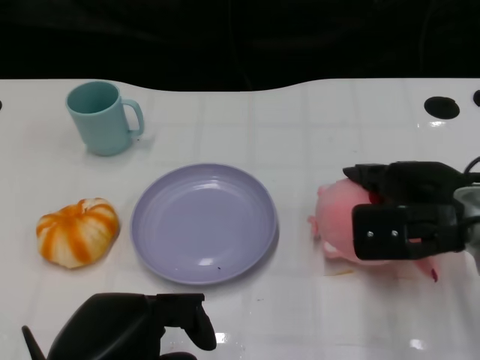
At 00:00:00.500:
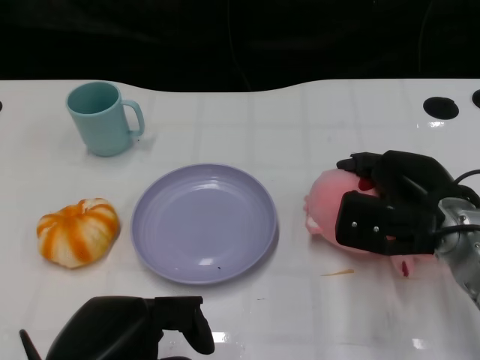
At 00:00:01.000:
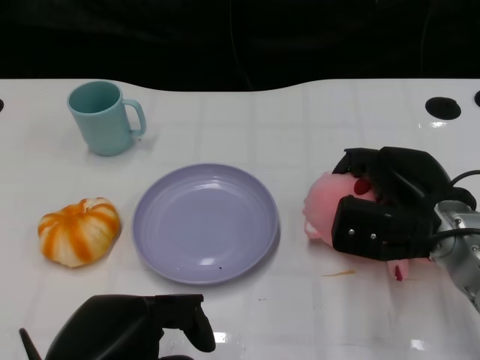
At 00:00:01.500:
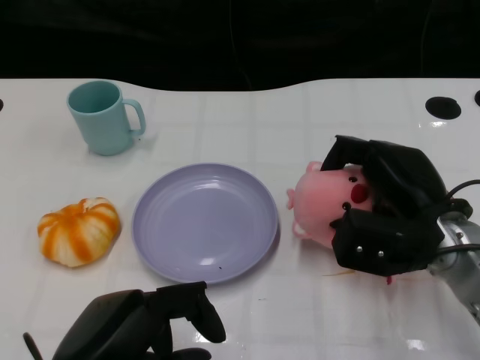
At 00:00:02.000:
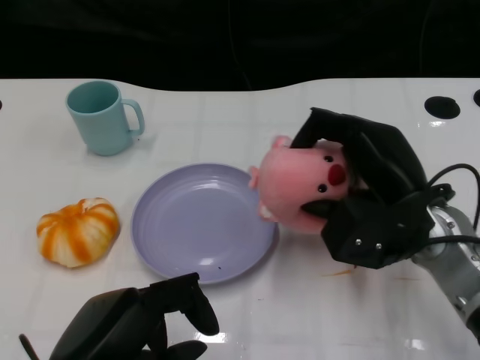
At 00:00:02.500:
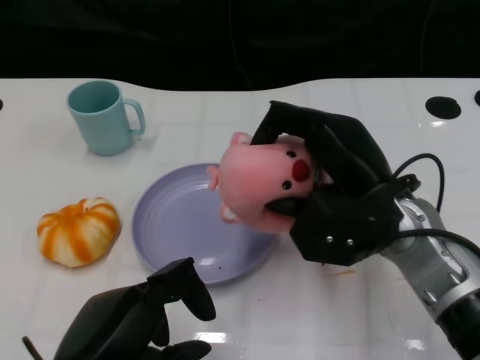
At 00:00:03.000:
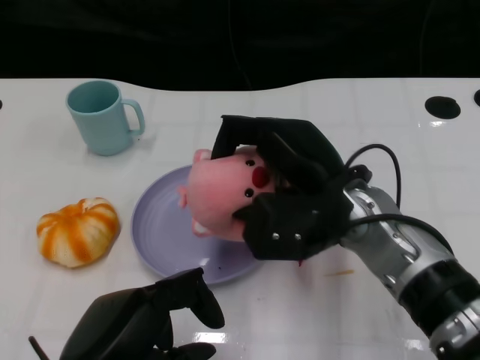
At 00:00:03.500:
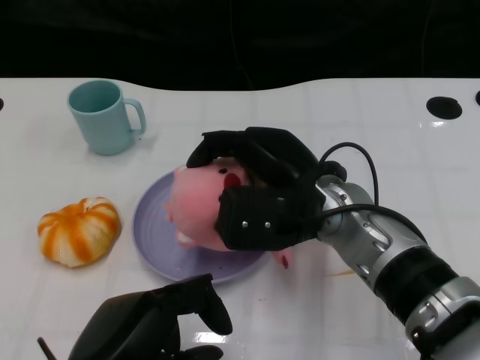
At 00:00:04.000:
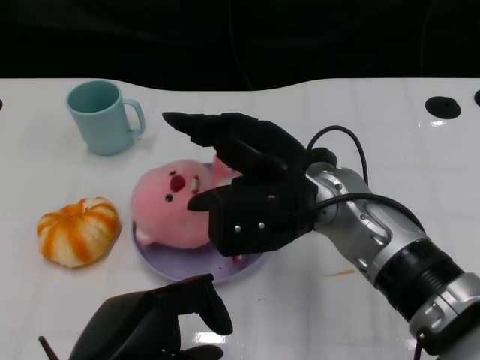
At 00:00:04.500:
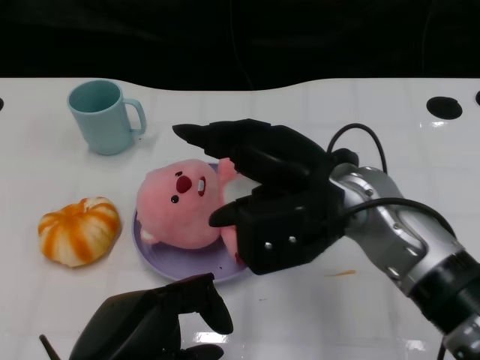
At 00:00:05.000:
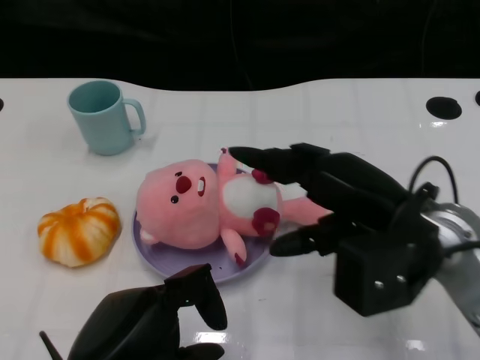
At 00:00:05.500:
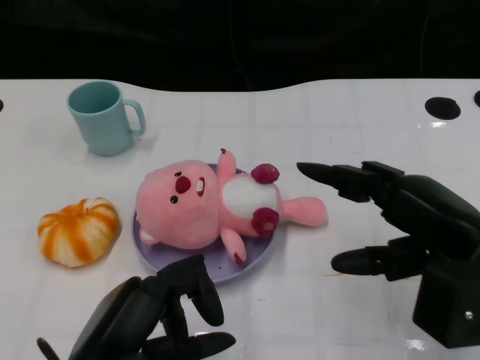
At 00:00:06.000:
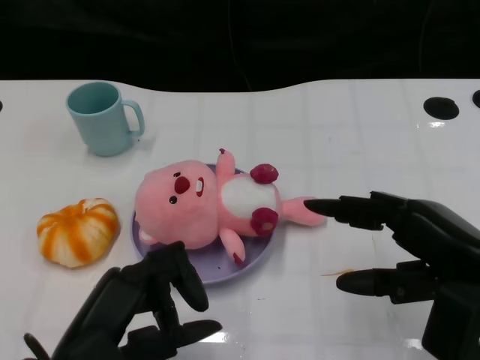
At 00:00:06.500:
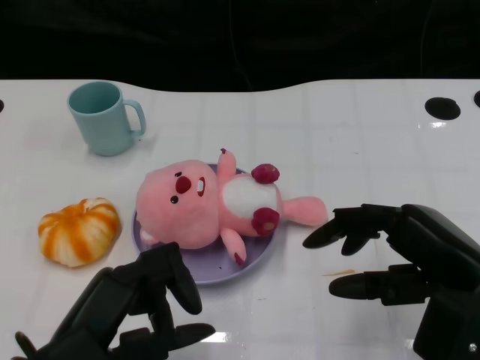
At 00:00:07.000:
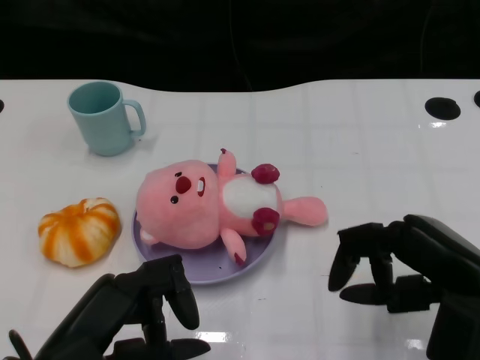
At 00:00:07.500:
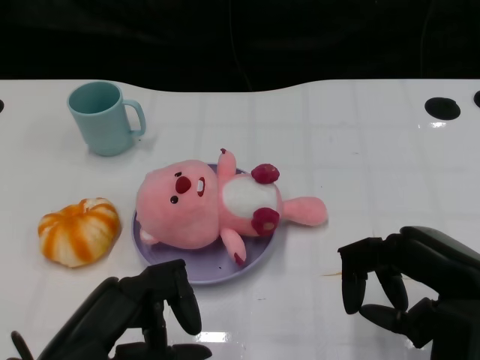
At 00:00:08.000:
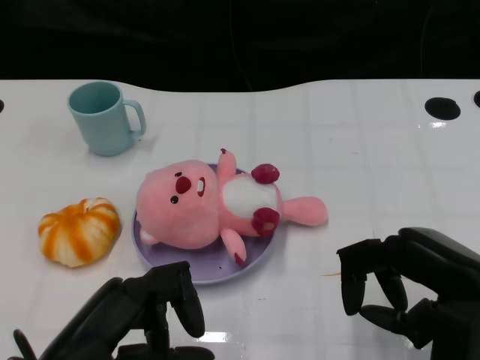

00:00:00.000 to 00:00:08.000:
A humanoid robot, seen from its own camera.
Task of the whole recording: Pick up the doll on the other side of the plate and place it into the plate.
Step, 00:00:00.000 to 00:00:02.500: Grasp the pink doll with the right gripper.
Step, 00:00:03.000 to 00:00:04.500: Place the pink doll into the plate with the right gripper.
00:00:02.000 to 00:00:04.000: The right hand goes roughly 10 cm to the left.
00:00:04.000 to 00:00:06.000: The right hand heads to the right and backward, covering roughly 20 cm.
00:00:06.000 to 00:00:08.000: The hands stay close to where they were, moving slightly.

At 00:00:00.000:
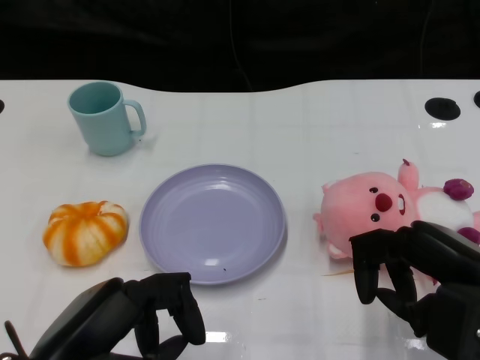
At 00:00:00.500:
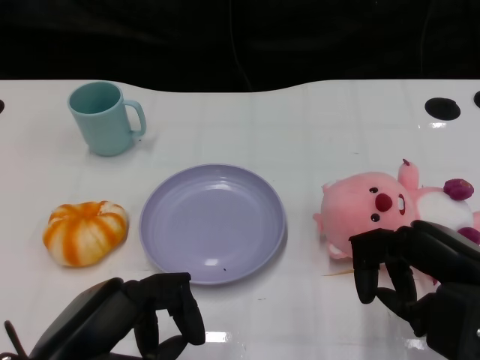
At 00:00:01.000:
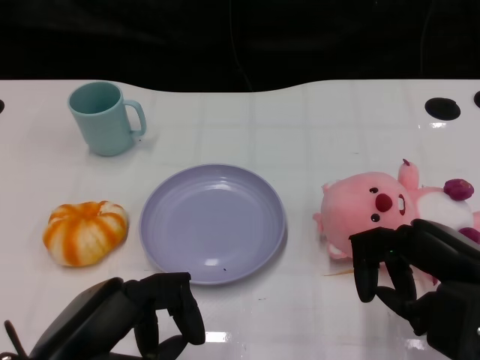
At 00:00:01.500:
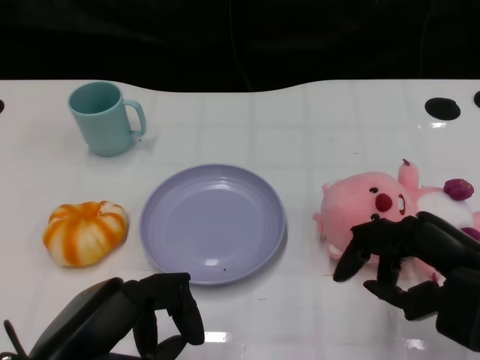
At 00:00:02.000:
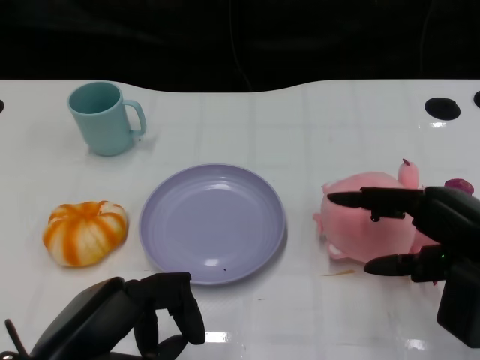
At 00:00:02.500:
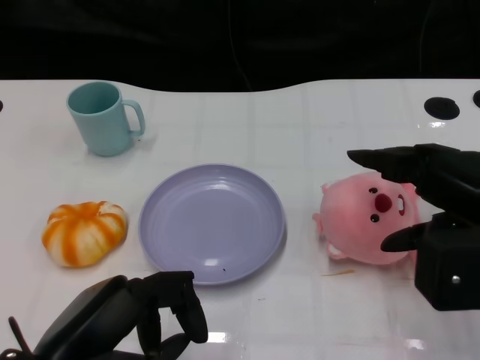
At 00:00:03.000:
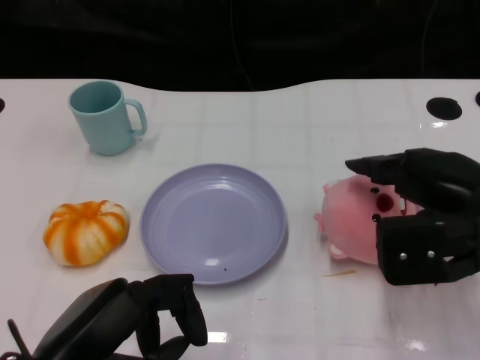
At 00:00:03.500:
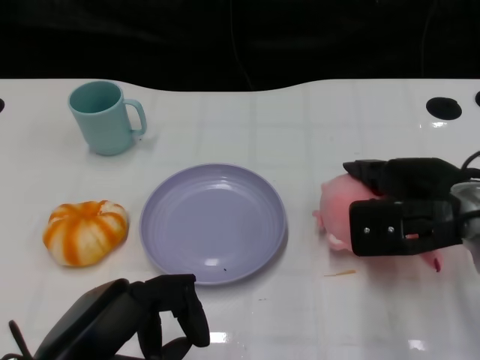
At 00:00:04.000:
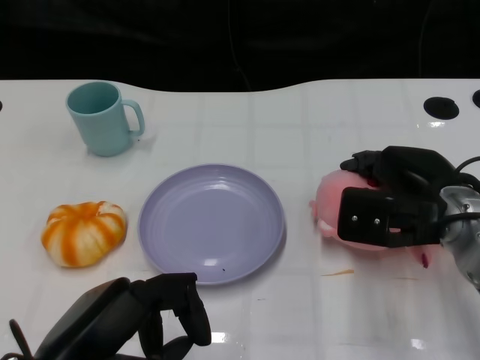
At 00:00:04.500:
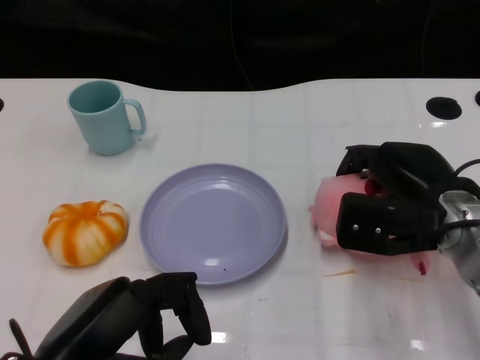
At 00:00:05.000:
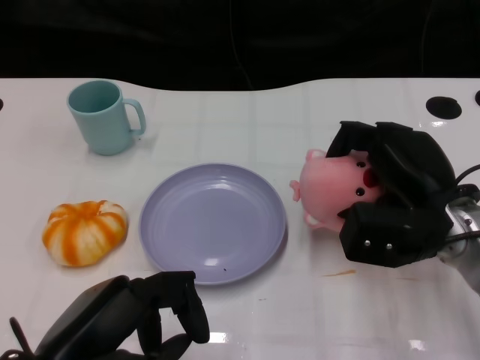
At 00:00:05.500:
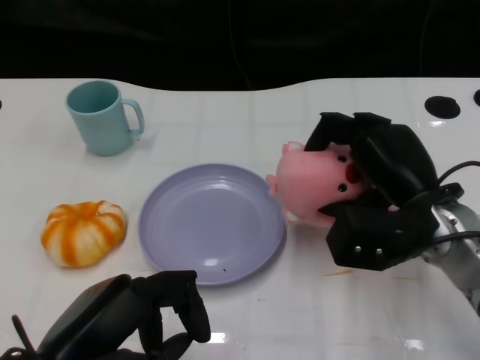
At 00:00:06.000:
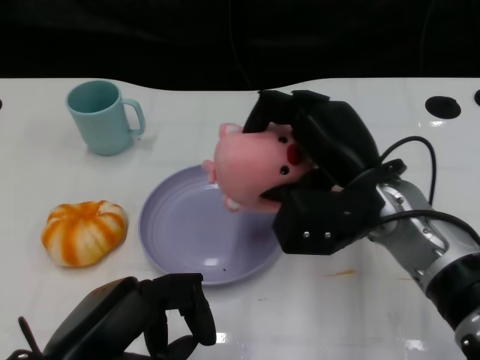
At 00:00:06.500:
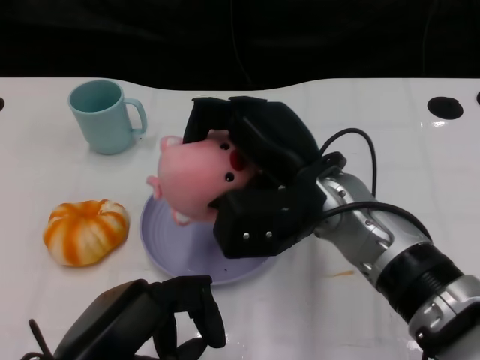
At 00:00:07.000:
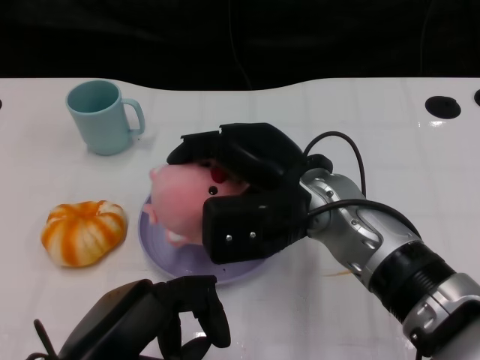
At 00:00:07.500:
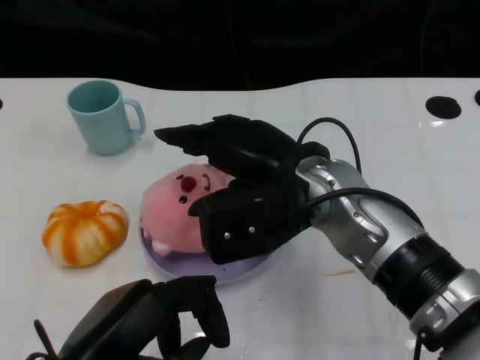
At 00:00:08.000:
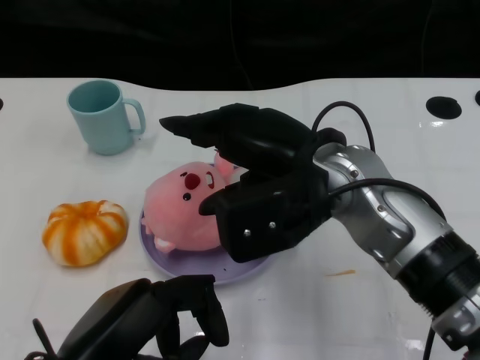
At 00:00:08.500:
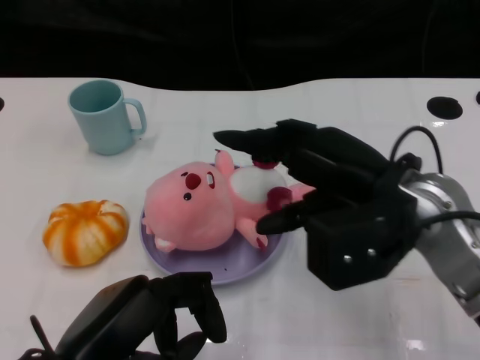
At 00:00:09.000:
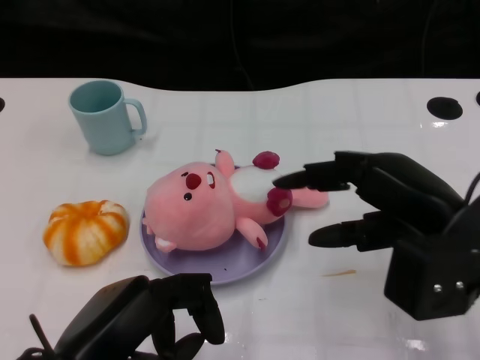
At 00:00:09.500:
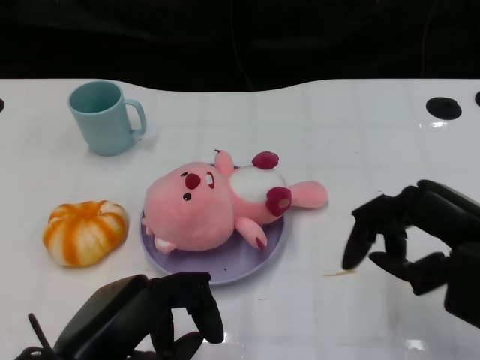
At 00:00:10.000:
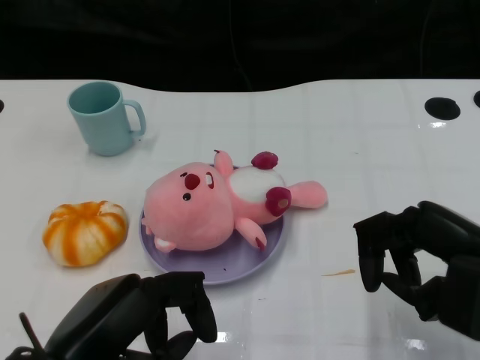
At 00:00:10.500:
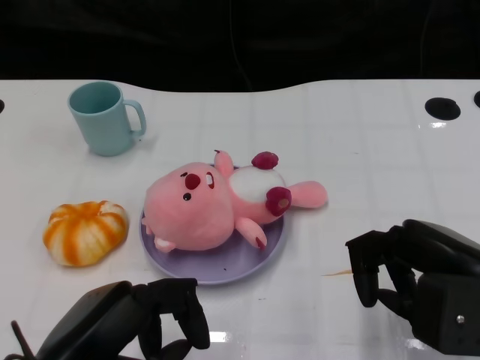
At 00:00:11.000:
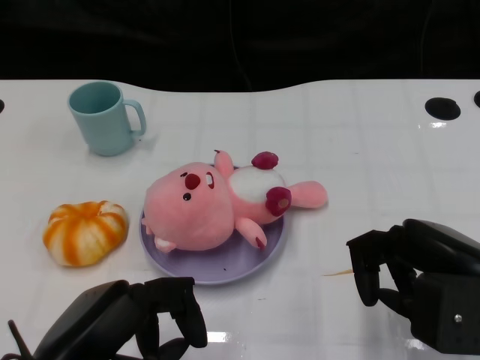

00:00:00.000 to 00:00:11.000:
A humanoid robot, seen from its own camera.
Task of the whole recording: Pick up the doll on the other side of the plate and place it into the plate.
Step, 00:00:01.500 to 00:00:05.500: Grasp the pink doll with the right gripper.
Step, 00:00:06.000 to 00:00:08.000: Place the pink doll into the plate with the right gripper.
00:00:02.000 to 00:00:03.500: The right hand shifts some 10 cm forward.
00:00:05.500 to 00:00:07.500: The right hand is displaced to the left and upward by roughly 15 cm.
00:00:07.500 to 00:00:09.000: The right hand moves to the right, about 15 cm.
00:00:09.000 to 00:00:11.000: The right hand changes place by roughly 5 cm.

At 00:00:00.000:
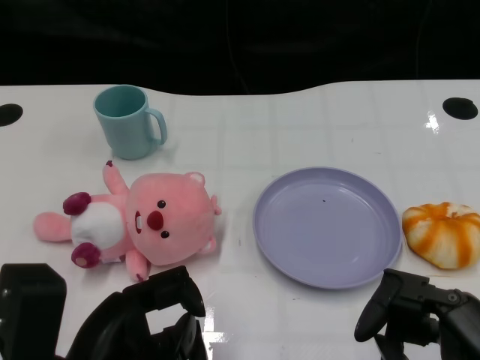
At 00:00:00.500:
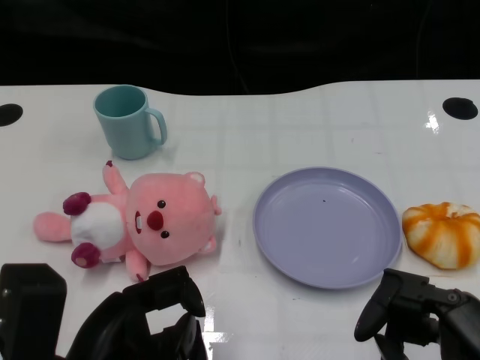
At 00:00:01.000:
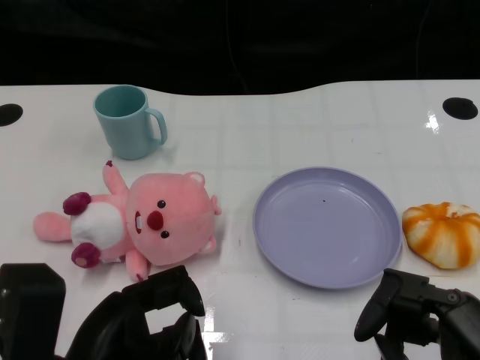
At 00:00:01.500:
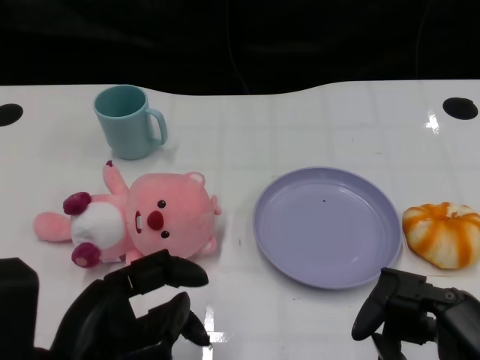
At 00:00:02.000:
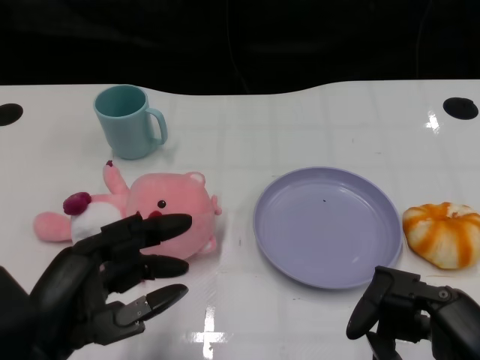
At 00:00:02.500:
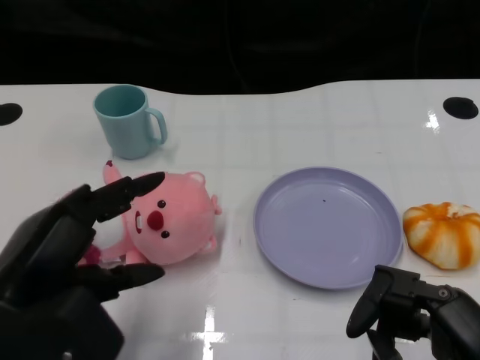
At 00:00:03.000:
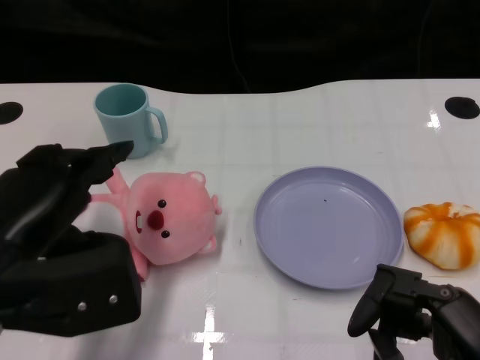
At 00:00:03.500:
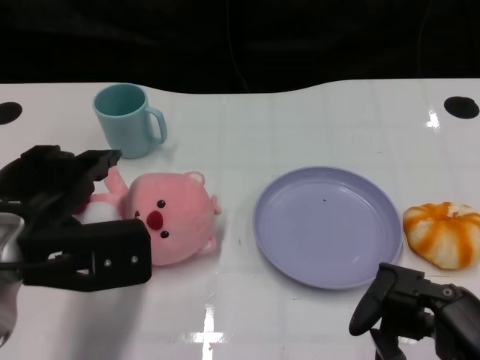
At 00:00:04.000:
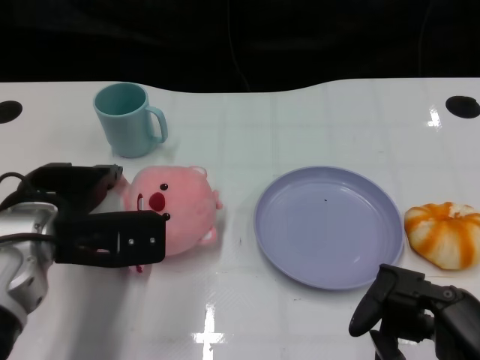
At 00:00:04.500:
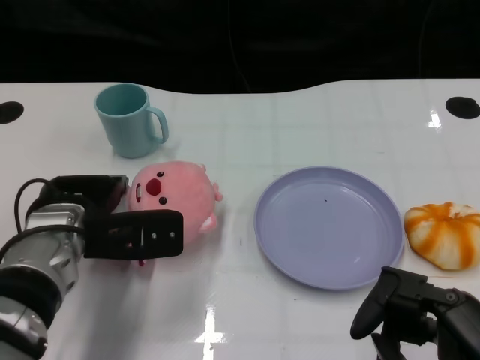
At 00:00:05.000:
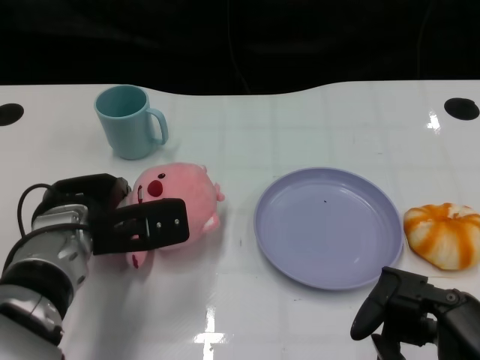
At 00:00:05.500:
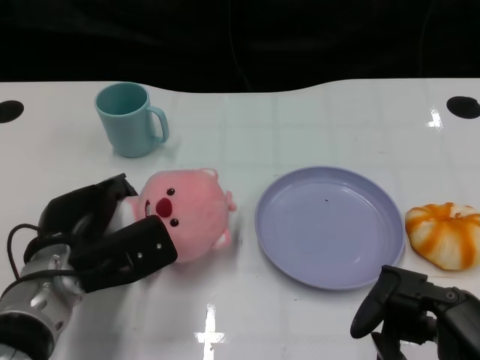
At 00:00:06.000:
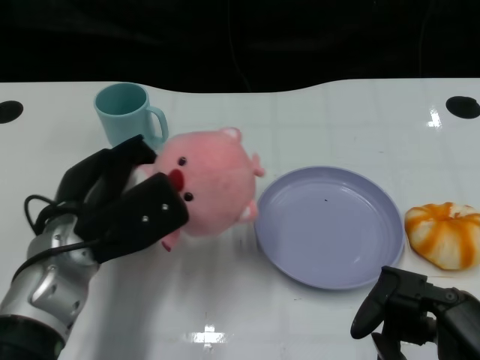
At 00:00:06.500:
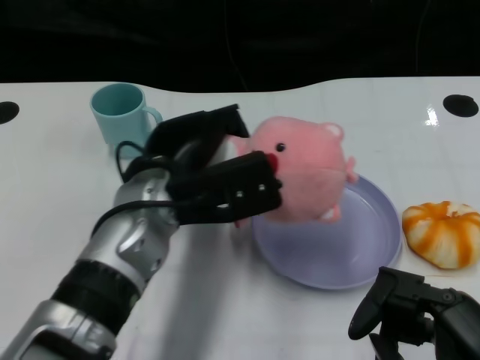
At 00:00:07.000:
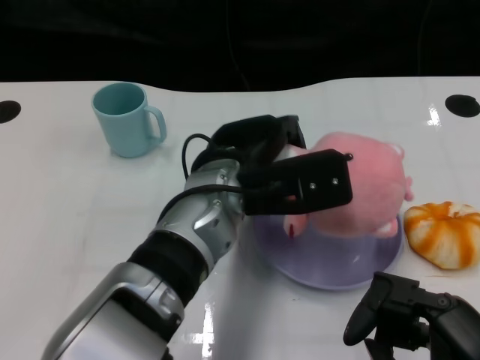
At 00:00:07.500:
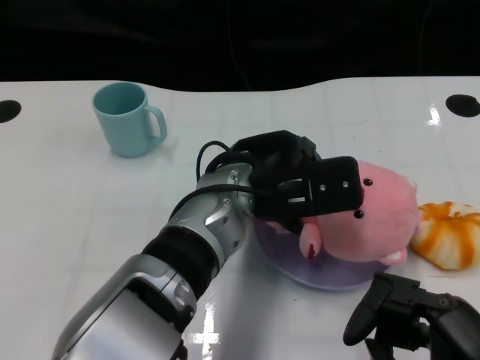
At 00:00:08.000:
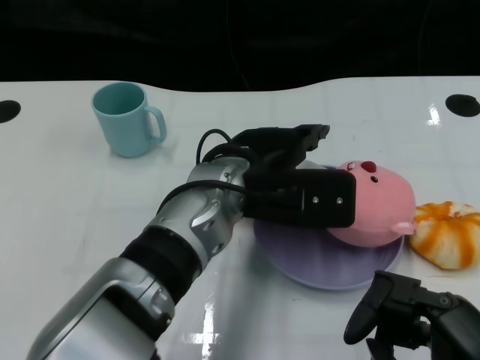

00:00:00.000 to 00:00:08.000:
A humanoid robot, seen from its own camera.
Task of the whole recording: Pick up the doll on one side of the plate and place it into the plate.
Step, 00:00:01.500 to 00:00:05.500: Grasp the pink doll with the left gripper.
Step, 00:00:06.000 to 00:00:07.500: Place the pink doll into the plate with the left gripper.
00:00:02.000 to 00:00:04.000: The left hand travels forward by approximately 15 cm.
00:00:06.000 to 00:00:08.000: The left hand heads to the right, covering about 15 cm.
